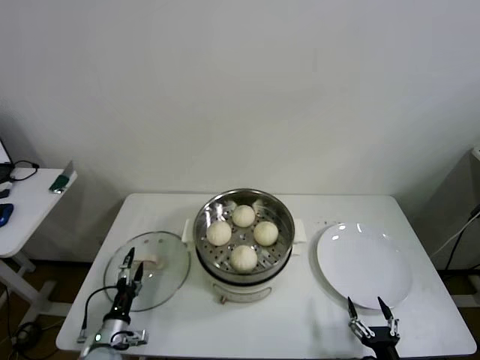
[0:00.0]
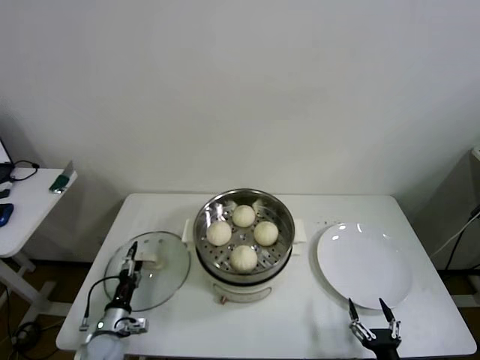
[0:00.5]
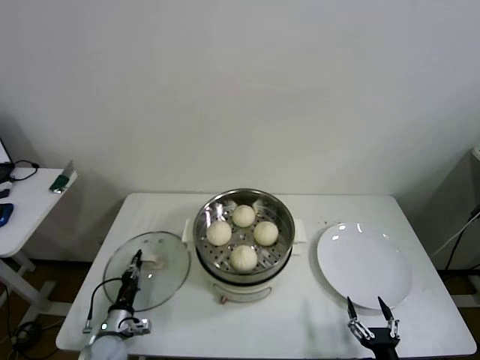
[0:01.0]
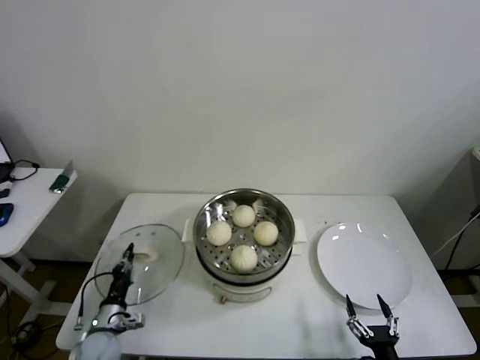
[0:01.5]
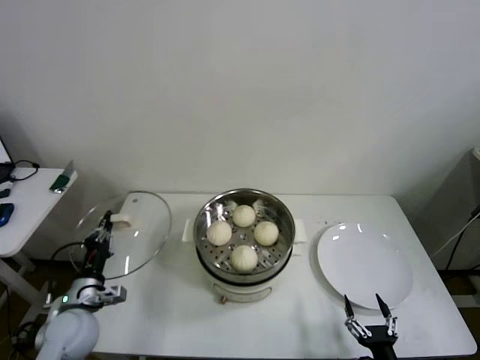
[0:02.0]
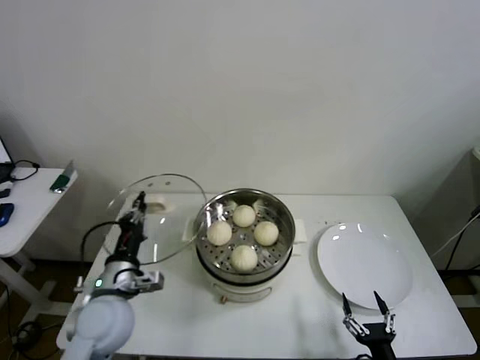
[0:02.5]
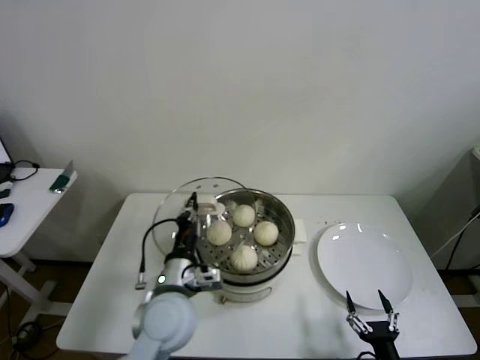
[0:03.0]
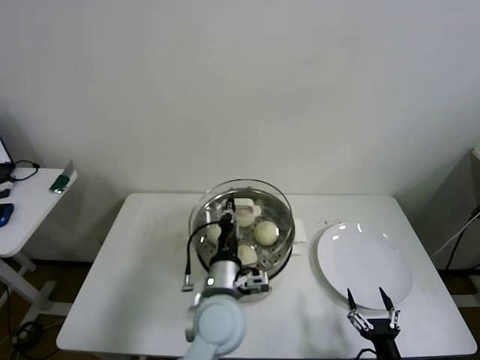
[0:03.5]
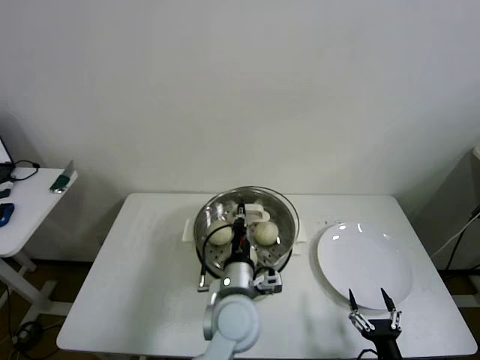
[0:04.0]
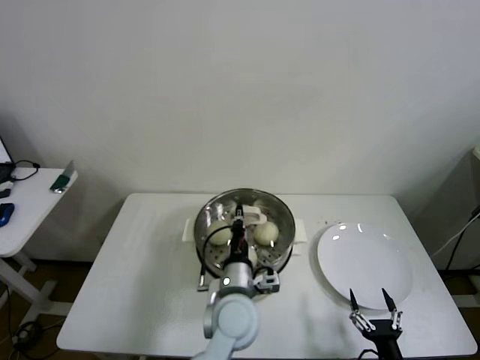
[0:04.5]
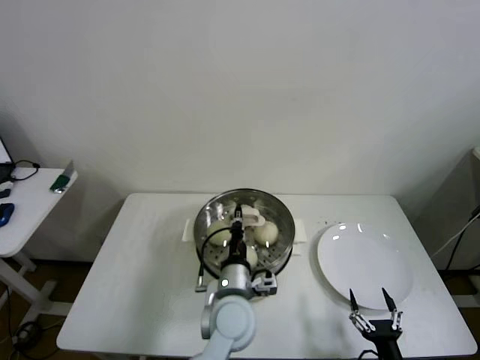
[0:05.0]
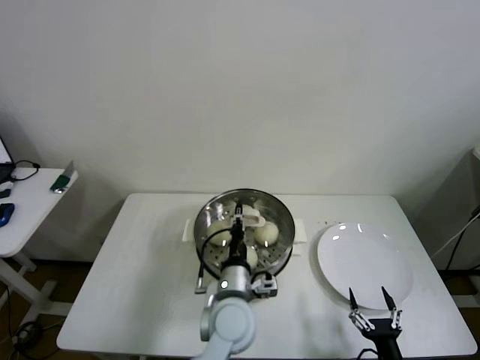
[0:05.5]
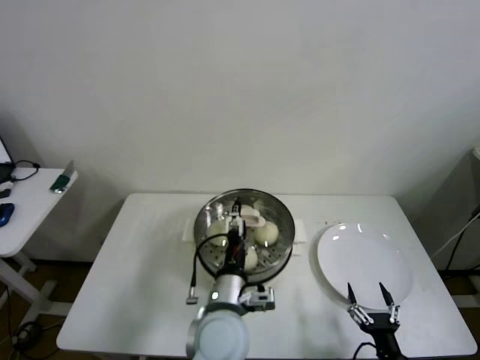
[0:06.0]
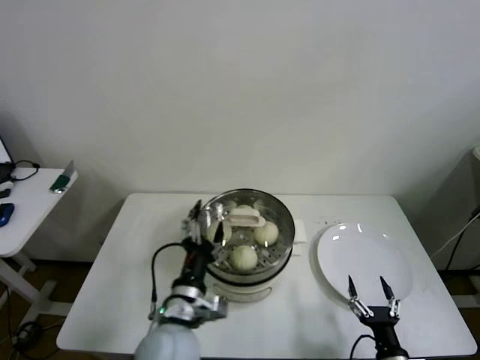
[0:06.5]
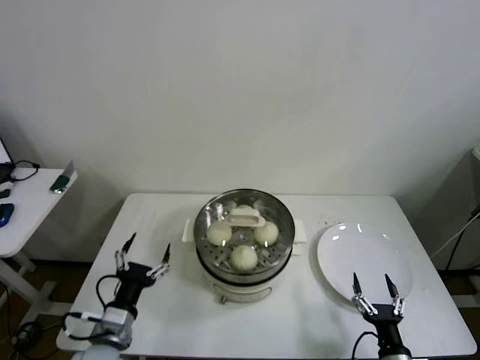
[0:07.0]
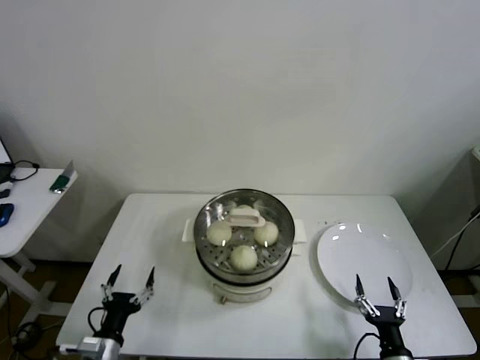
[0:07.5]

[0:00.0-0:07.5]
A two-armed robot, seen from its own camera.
Step, 0:01.5 to 0:06.0: Place the pot lid on the steamer with left gripper.
0:00.0 to 0:02.0: The left gripper travels upward by roughly 15 cm, and closes up.
0:02.0 to 0:04.0: The left gripper heads to the right, covering roughly 35 cm.
0:04.0 to 0:05.5: The grippers move only a little.
0:05.5 to 0:07.5: The left gripper travels to the left by approximately 30 cm, and opens up.
